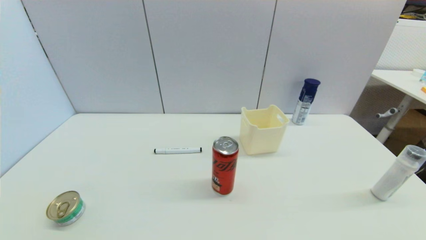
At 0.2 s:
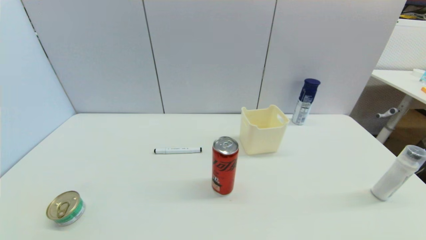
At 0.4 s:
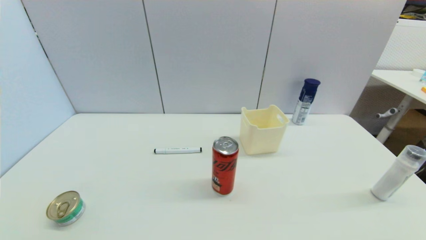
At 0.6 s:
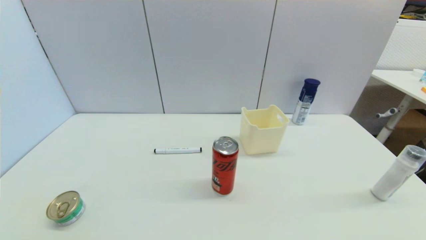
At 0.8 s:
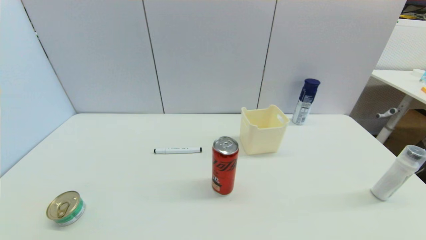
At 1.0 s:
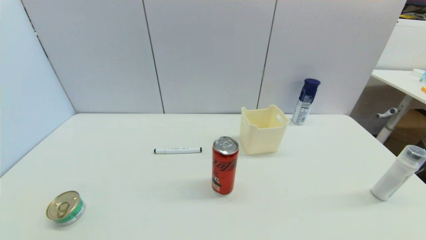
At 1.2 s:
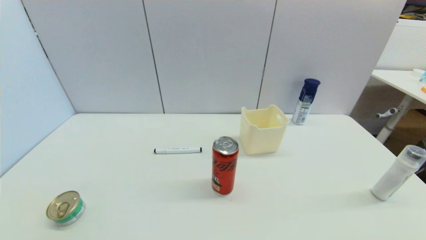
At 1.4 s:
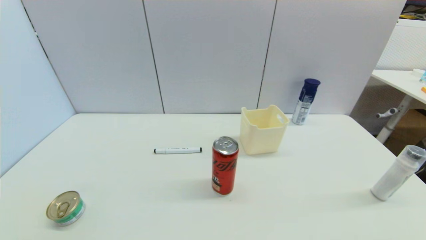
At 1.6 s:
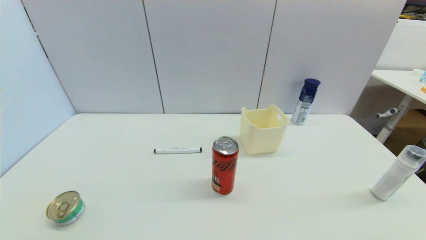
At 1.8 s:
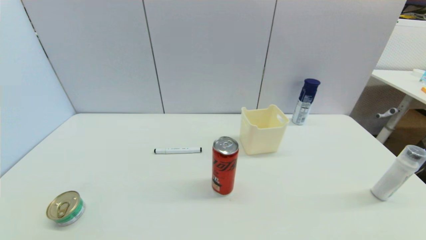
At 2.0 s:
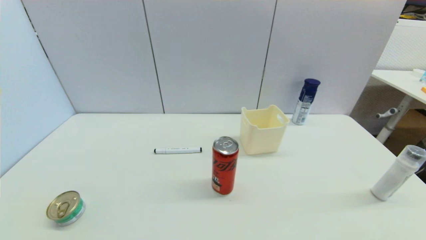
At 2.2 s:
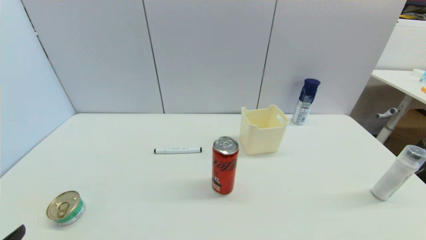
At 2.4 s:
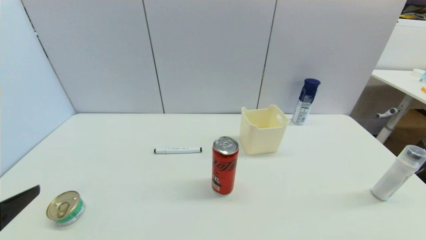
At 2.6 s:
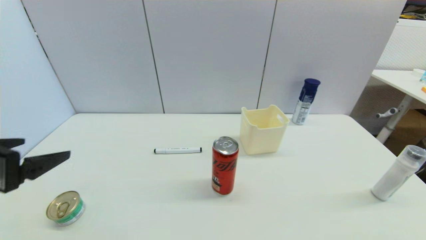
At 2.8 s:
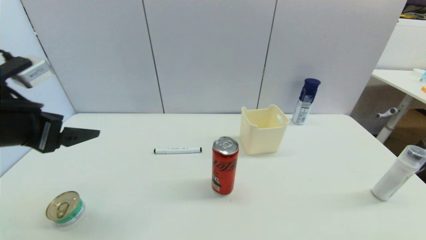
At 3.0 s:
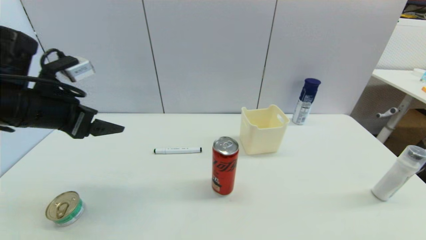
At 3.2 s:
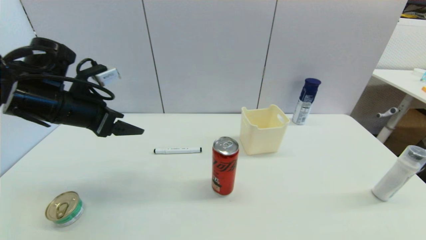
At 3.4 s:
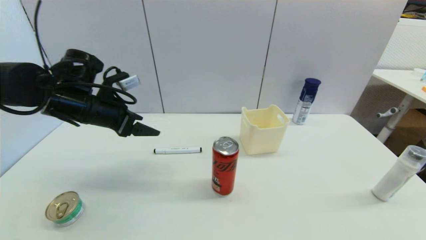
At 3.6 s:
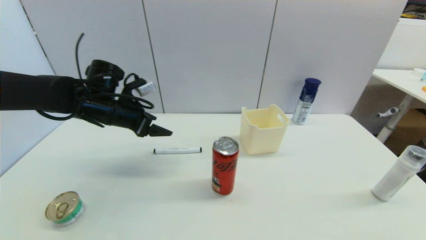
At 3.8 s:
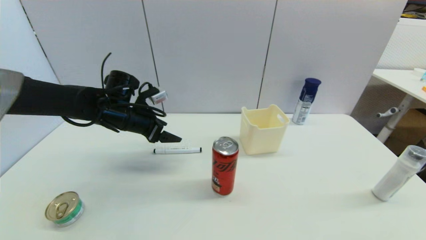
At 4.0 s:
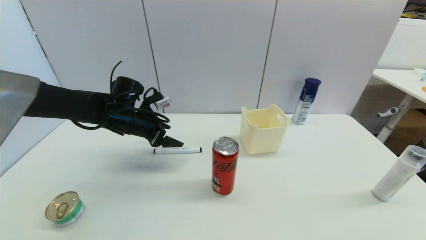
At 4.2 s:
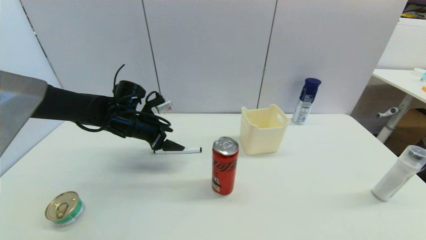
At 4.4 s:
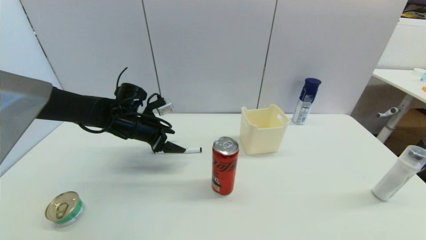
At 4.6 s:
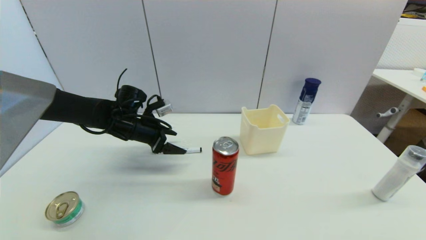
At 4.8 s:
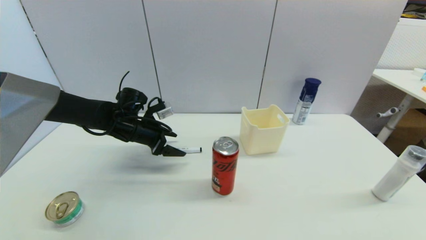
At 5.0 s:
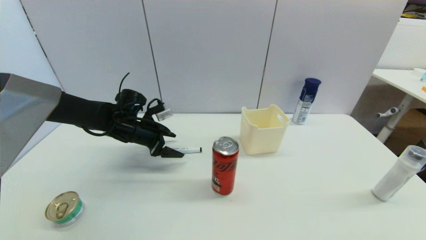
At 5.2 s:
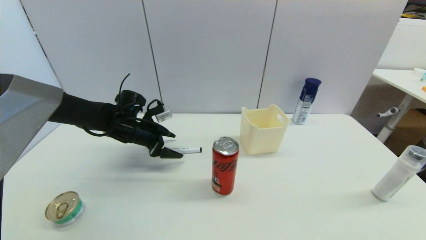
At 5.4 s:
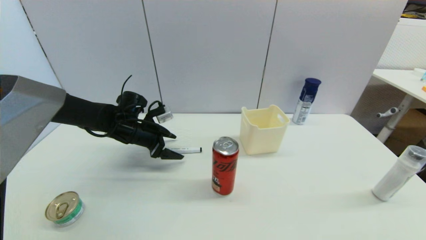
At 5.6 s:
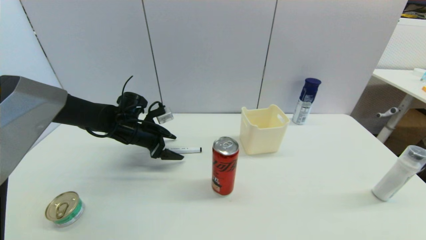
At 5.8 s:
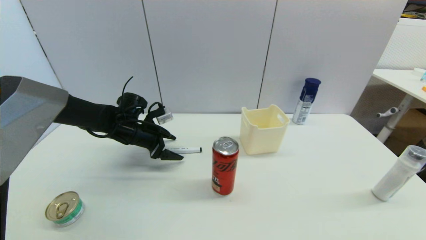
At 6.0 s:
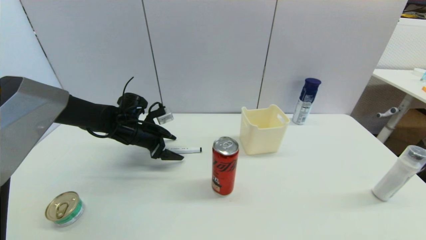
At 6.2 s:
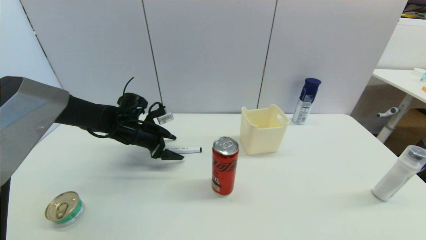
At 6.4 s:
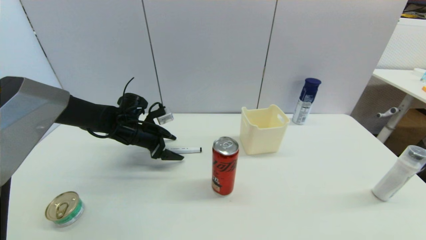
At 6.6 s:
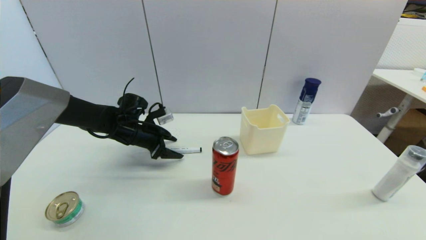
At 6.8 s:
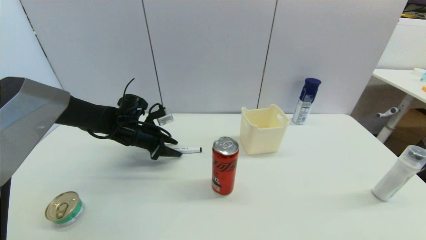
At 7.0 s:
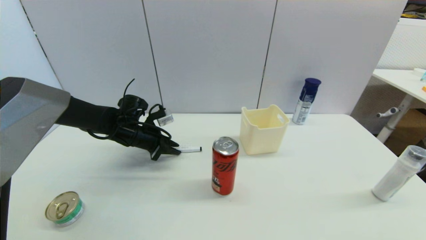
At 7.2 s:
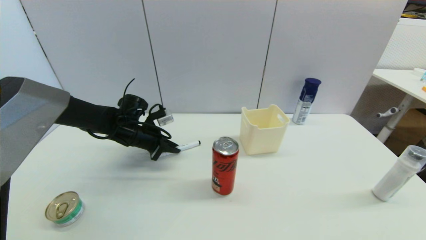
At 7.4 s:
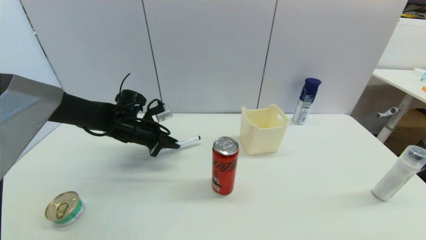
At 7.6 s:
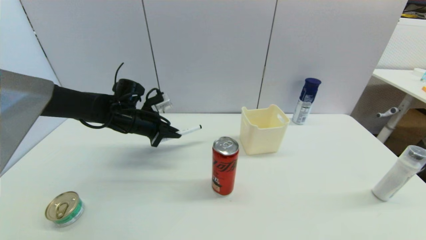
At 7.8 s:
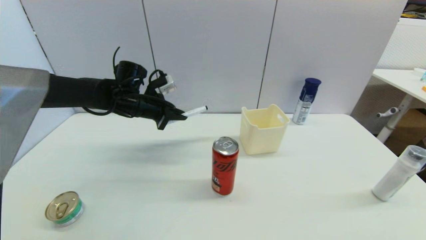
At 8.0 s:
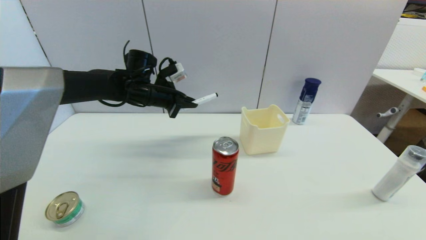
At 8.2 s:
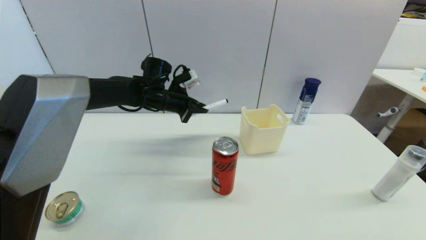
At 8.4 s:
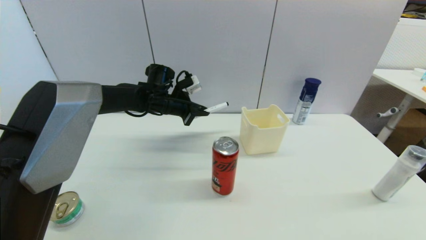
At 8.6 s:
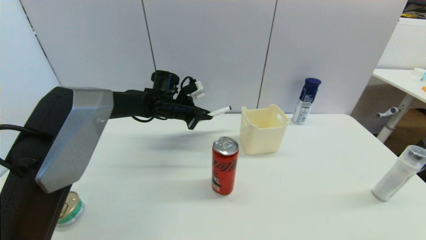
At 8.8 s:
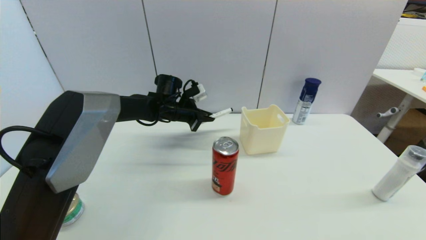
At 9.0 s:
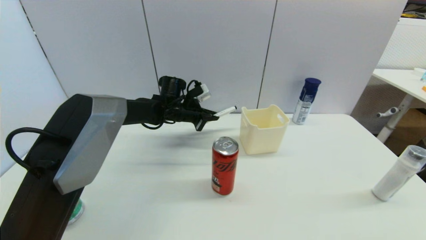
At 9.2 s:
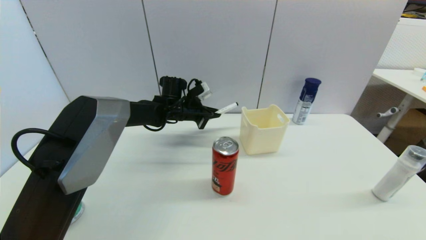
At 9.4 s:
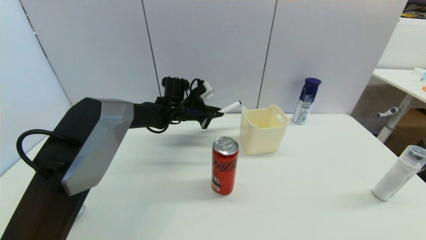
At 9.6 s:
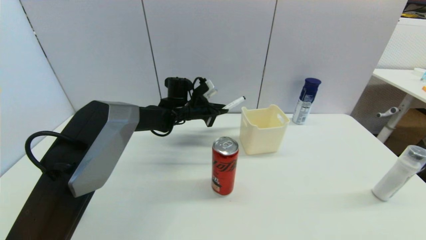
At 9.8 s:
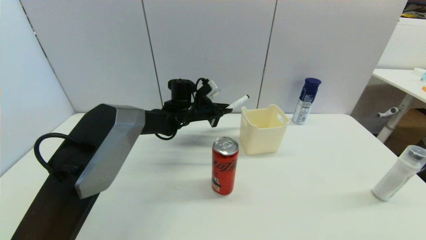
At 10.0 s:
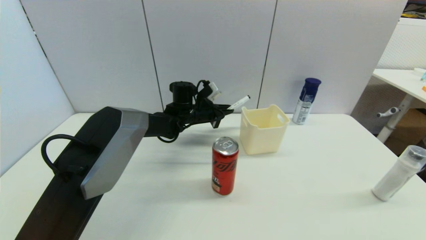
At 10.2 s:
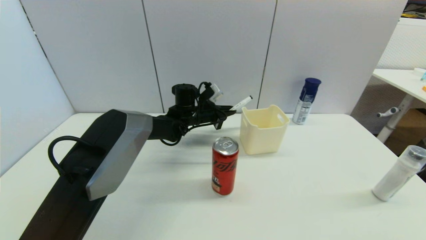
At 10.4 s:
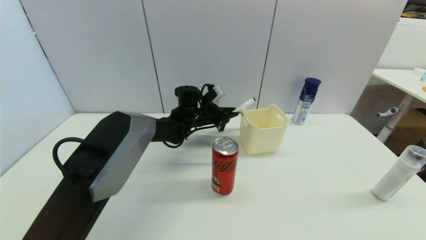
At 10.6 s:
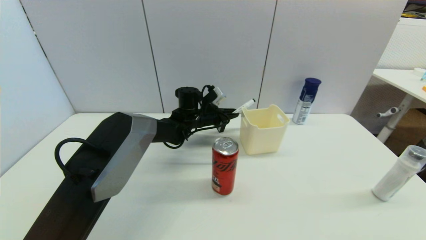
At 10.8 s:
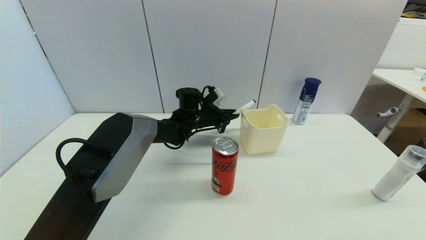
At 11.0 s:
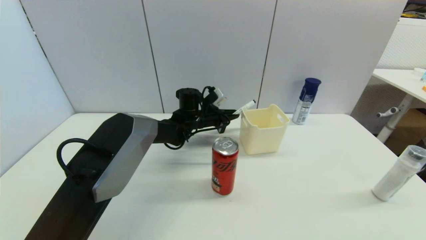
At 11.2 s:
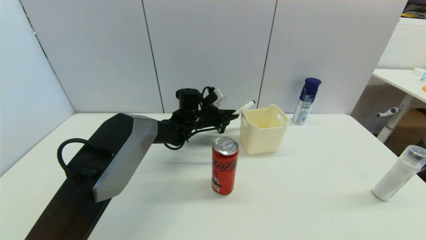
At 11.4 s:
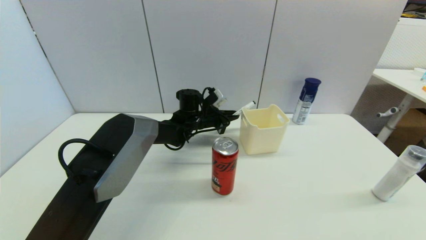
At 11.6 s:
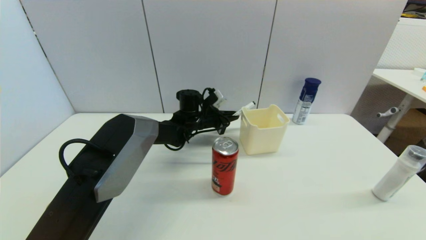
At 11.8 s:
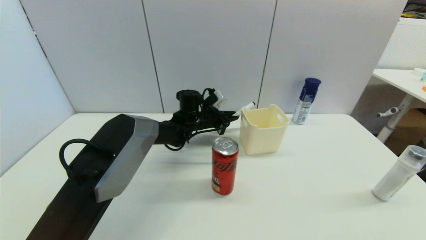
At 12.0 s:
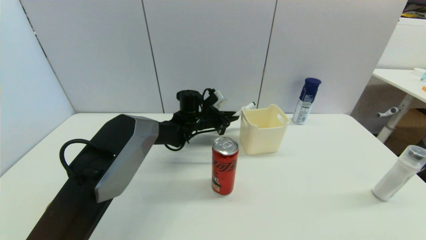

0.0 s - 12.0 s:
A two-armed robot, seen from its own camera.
Task of the whole recording: put the black marker in the designated position.
Step, 2.2 s - 7.2 s: Grasp the Marker pen with left gripper.
0.0 s - 1.6 s: Both grippers stay put.
1.6 s - 3.0 s: The left gripper is displaced forward and upward by some 35 cm.
3.0 s - 4.4 s: The left gripper goes some 20 cm forward, downward and to the right.
4.4 s - 6.0 s: The grippers make only small movements.
6.0 s - 7.6 s: The left gripper closes.
7.6 s - 9.0 s: The left gripper is displaced to the right and forward by approximately 15 cm.
9.0 s - 10.4 s: The left gripper goes about 5 cm to the right.
10.4 s - 12.0 s: Neither gripper changes place.

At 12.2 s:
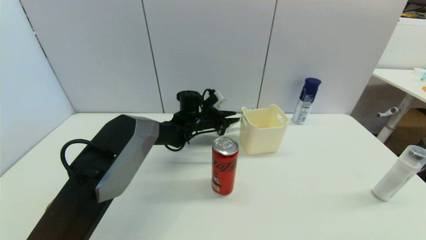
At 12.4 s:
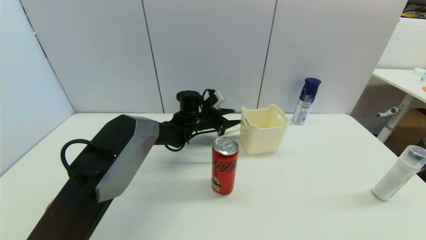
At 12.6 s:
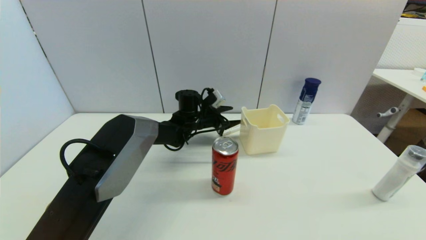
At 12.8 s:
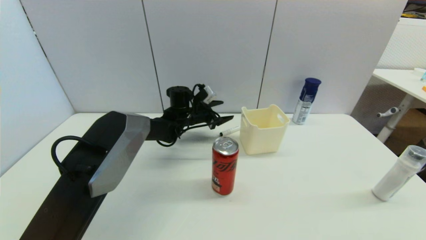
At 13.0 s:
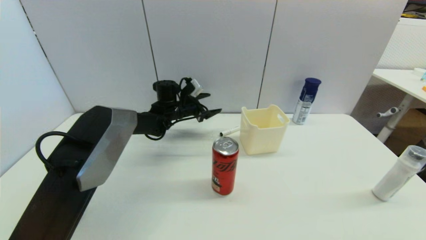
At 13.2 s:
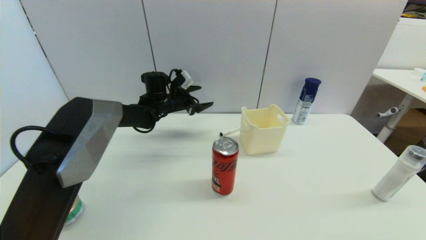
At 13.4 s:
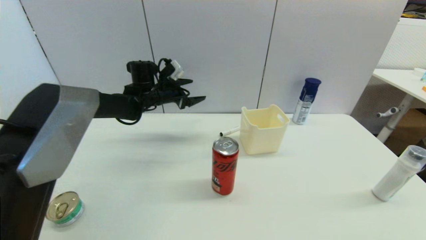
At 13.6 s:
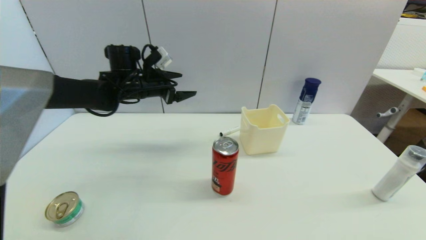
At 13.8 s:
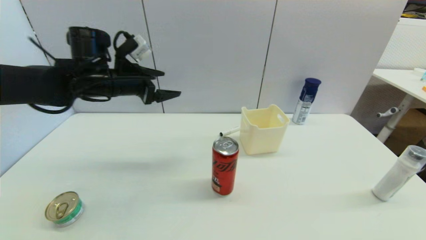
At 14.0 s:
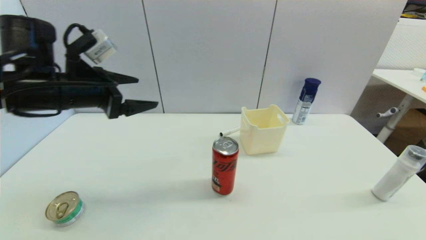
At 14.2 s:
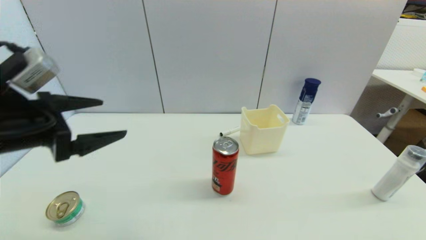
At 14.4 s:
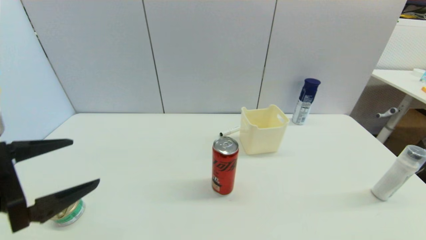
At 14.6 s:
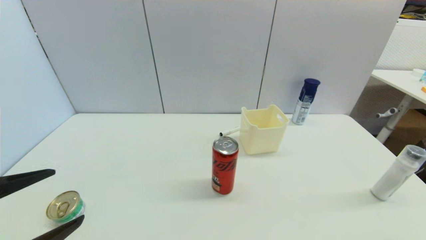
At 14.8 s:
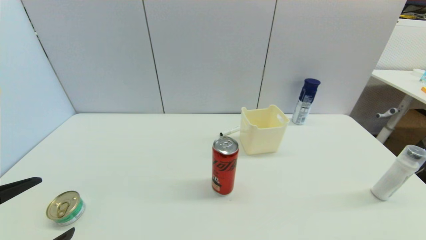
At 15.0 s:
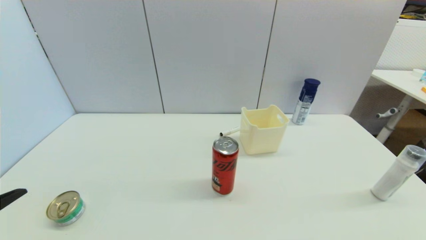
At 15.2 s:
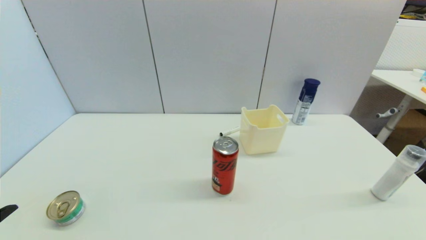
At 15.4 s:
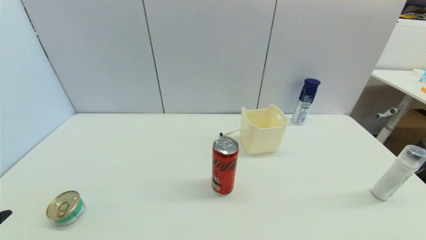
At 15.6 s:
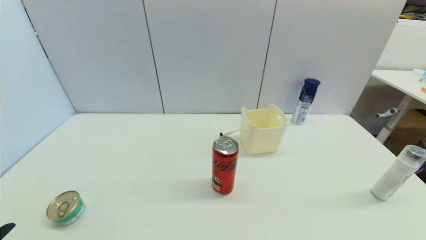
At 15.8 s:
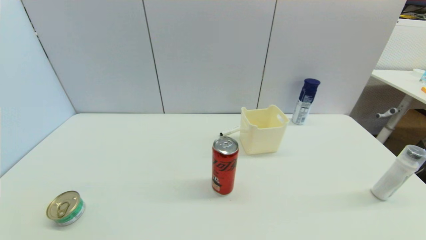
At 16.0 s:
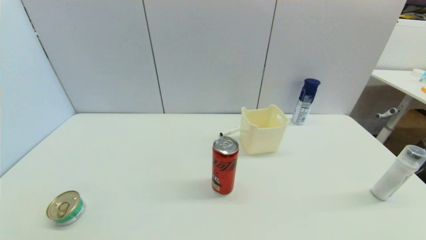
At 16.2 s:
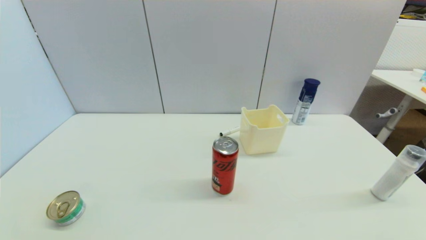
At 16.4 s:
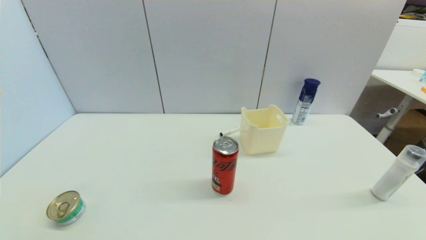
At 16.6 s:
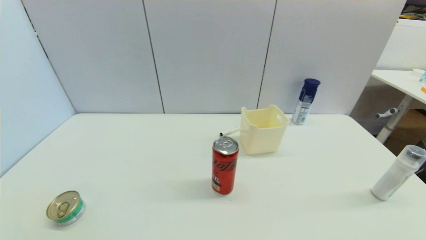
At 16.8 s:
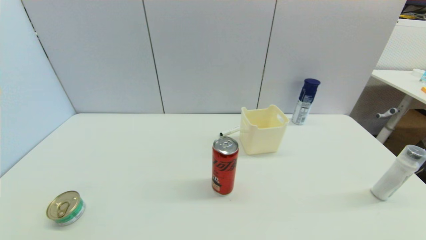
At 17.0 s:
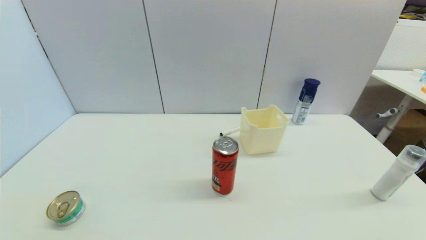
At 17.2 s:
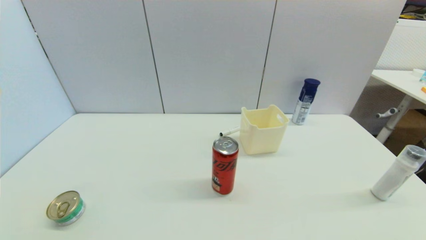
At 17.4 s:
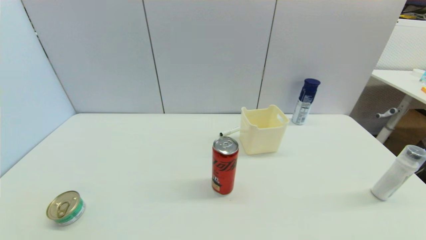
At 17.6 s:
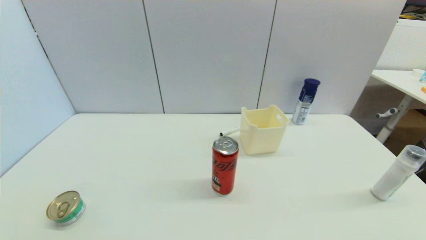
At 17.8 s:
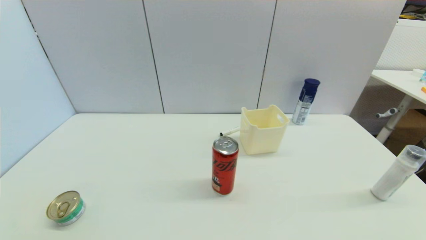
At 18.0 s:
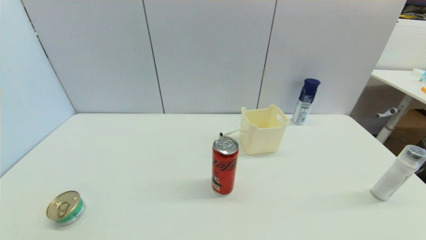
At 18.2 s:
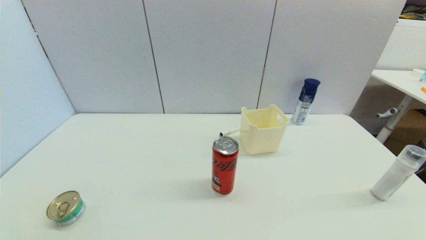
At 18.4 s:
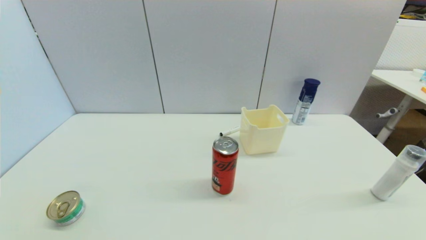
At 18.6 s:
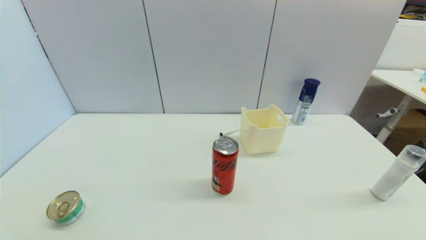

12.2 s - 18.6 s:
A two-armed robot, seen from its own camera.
Task of the whole recording: put the black marker in the designated position.
12.2 s - 13.8 s: The left gripper shifts about 25 cm to the left, upward and backward, and opens.
13.8 s - 15.4 s: The left gripper moves backward, about 35 cm.
17.0 s - 18.6 s: The two grippers keep their place.
